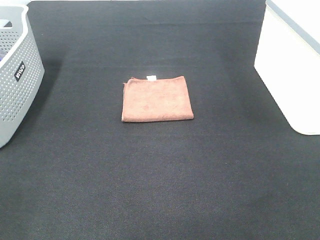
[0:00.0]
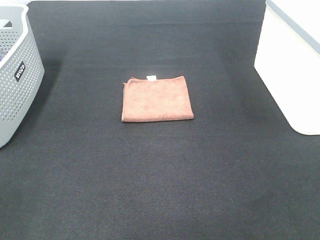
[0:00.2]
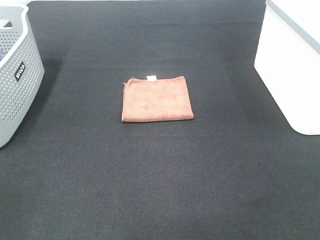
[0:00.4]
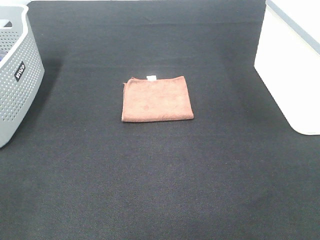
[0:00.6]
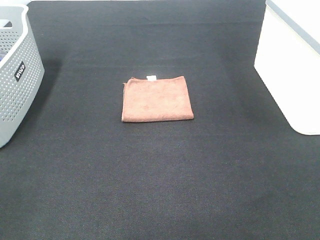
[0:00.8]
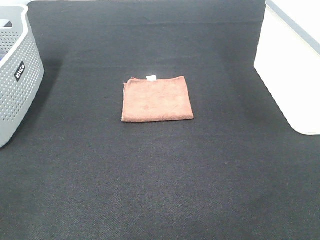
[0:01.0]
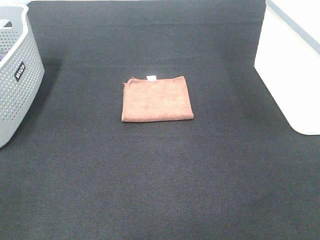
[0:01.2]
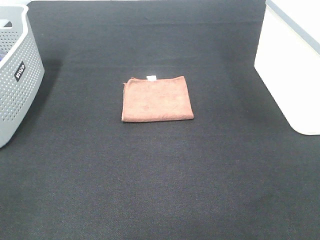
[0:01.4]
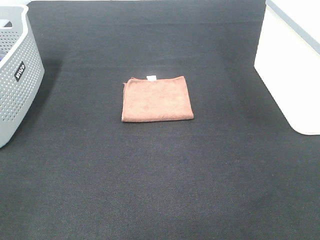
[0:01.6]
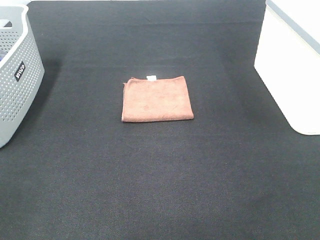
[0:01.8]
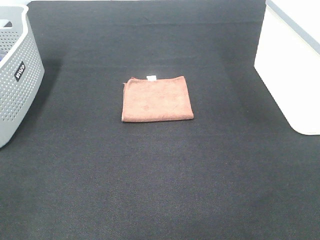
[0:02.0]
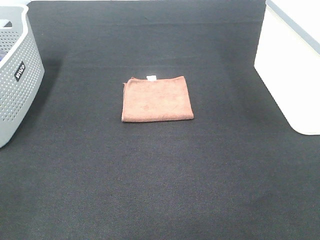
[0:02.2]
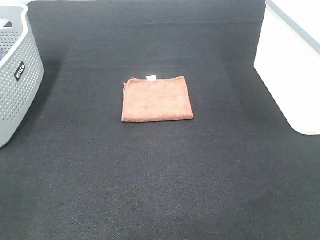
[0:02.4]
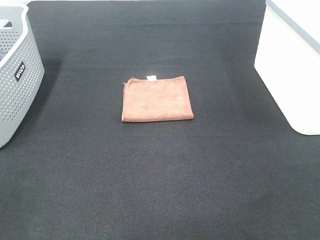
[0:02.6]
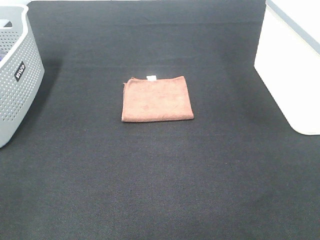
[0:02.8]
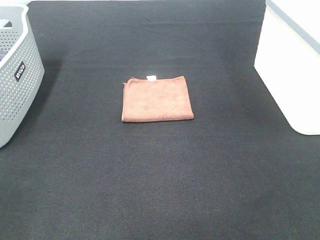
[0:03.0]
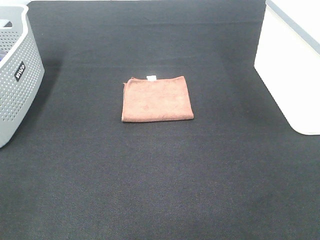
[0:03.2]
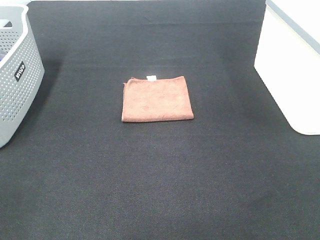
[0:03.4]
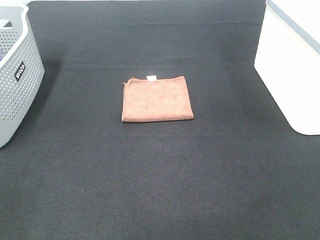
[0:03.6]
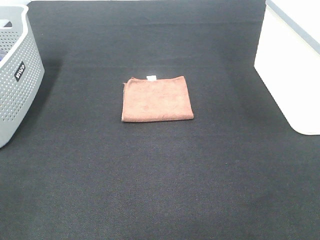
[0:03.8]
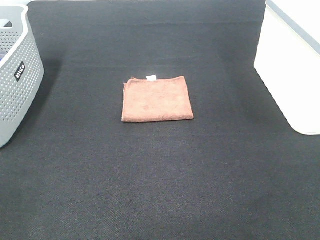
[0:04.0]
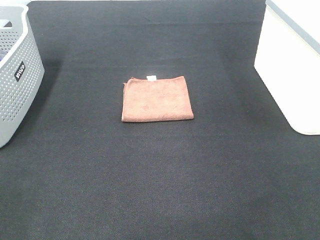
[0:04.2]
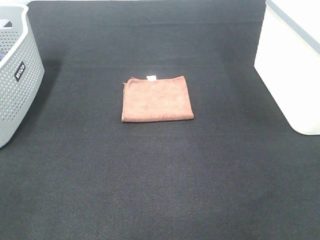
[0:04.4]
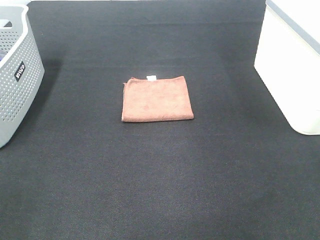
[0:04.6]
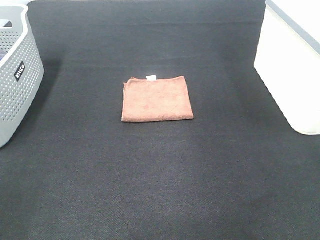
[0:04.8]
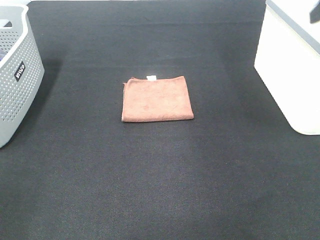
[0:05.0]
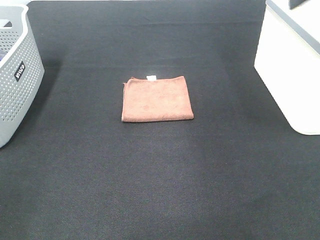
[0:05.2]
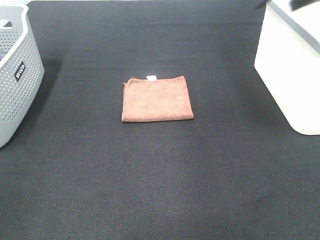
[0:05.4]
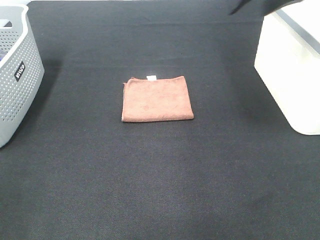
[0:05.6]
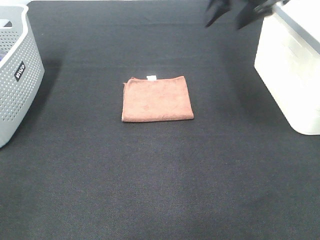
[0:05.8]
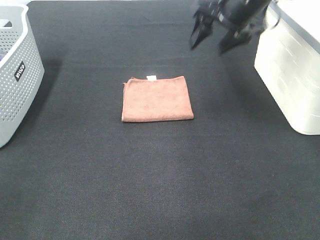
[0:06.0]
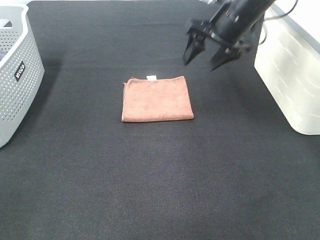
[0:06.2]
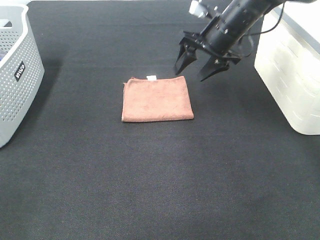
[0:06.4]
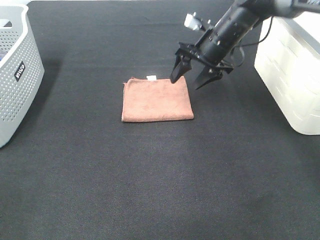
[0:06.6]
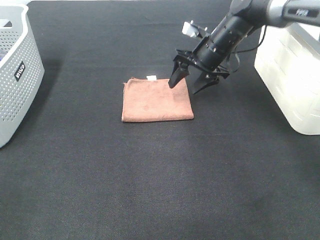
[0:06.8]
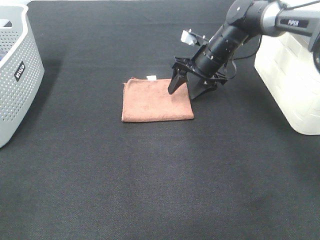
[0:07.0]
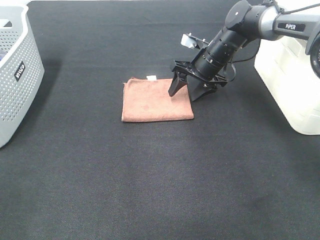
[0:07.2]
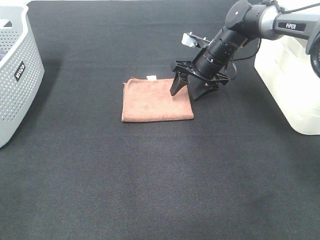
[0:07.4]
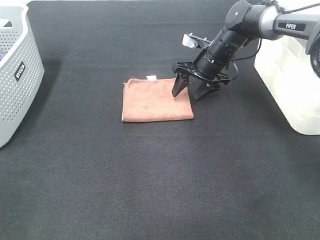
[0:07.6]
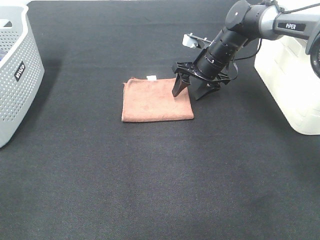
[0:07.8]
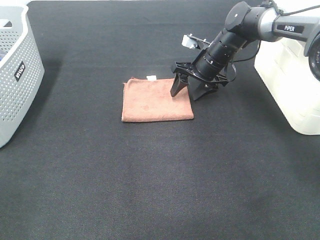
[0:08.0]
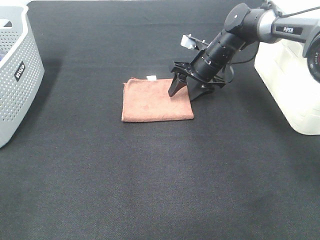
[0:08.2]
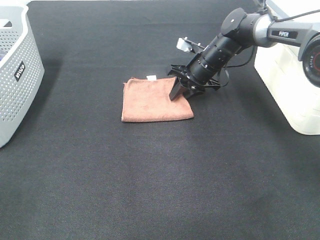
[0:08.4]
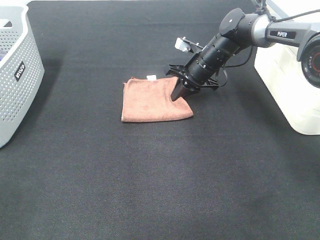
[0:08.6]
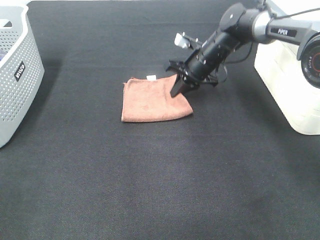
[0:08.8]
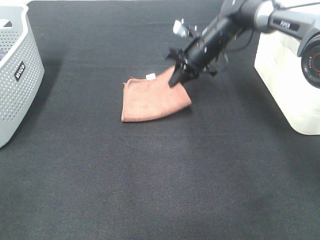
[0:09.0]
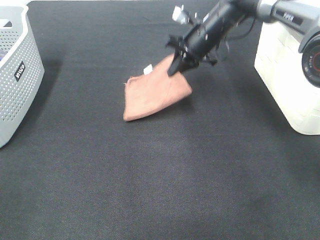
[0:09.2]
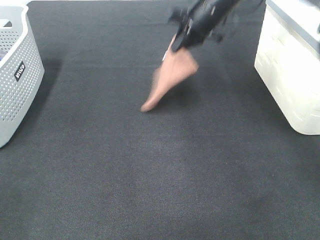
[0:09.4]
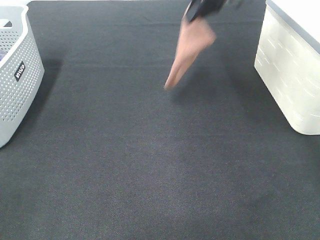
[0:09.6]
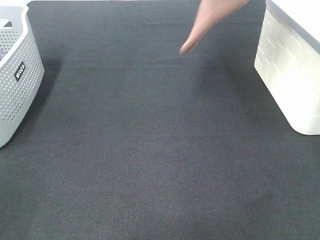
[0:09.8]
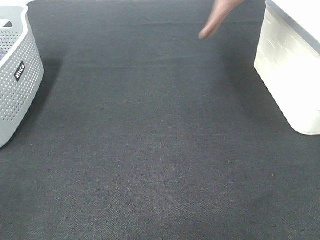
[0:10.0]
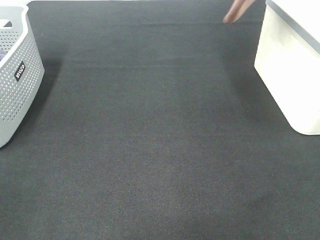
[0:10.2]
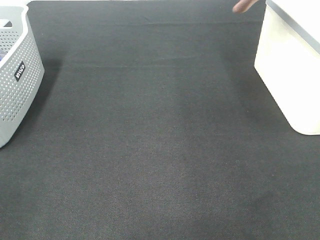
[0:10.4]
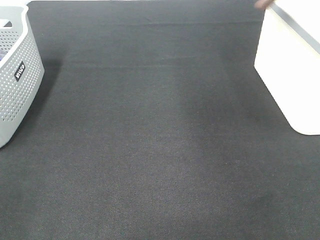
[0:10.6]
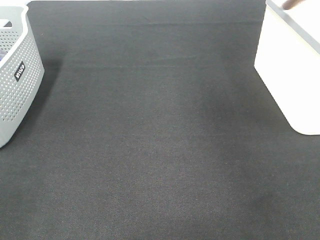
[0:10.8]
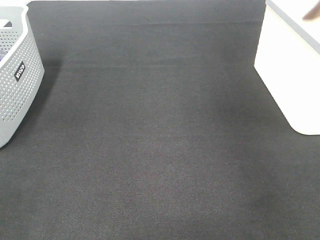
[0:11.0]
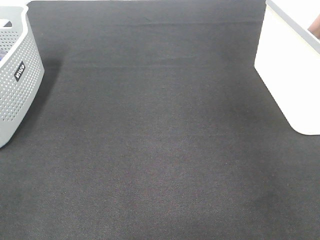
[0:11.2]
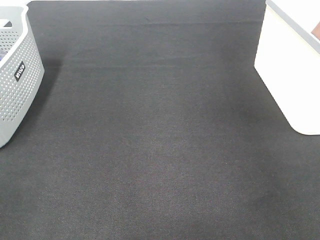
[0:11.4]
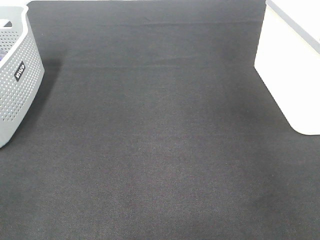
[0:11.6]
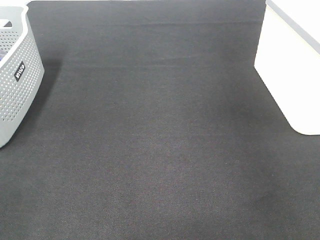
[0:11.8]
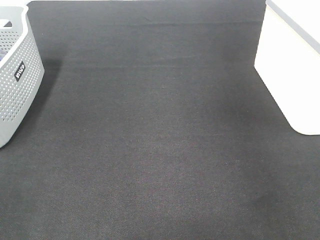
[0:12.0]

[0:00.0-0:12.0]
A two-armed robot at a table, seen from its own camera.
Step, 0:00.0 to 0:08.8: Right hand: grab the folded brown towel.
Step, 0:09.0 to 0:11.8: Right hand: place the brown towel in right basket.
0:00.0 to 0:03.0: Both grippers stay about where they are.
0:04.4 to 0:06.0: The right gripper heads forward and to the left, covering approximately 35 cm.
0:06.0 to 0:07.6: The right gripper travels downward and forward by approximately 15 cm.
0:07.6 to 0:09.0: The right gripper closes up.
0:09.0 to 0:10.4: The right gripper travels upward and to the right by approximately 35 cm.
0:10.4 to 0:12.0: The right gripper moves to the right and downward, roughly 10 cm, and opens.

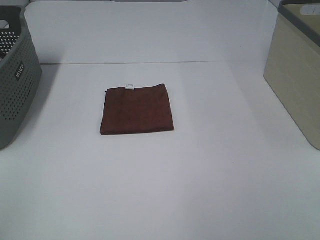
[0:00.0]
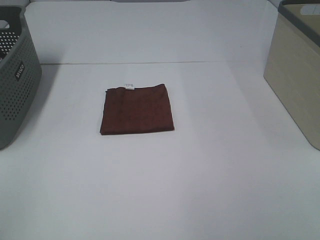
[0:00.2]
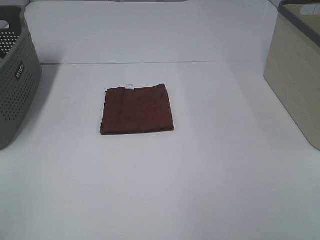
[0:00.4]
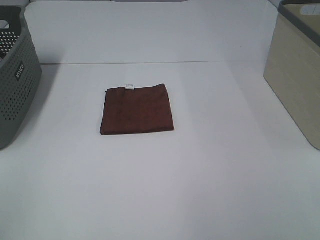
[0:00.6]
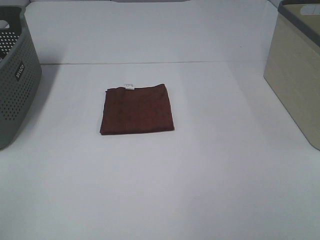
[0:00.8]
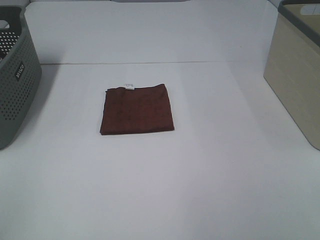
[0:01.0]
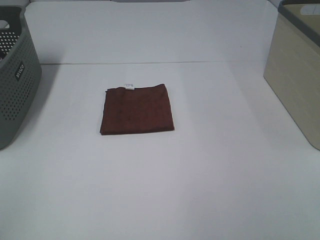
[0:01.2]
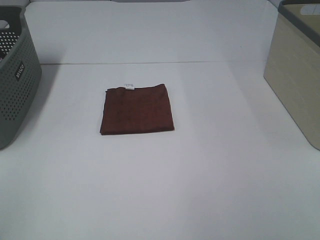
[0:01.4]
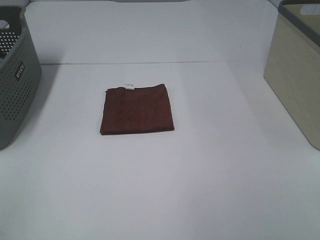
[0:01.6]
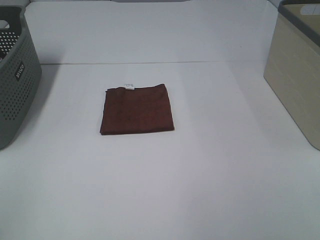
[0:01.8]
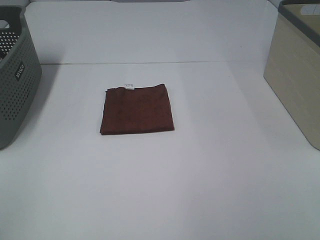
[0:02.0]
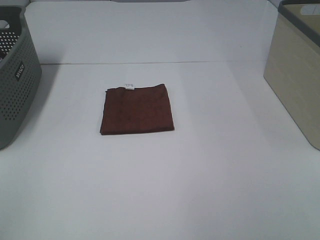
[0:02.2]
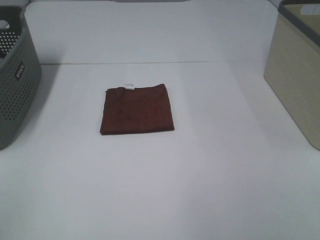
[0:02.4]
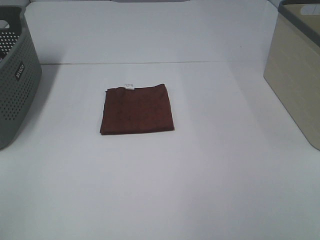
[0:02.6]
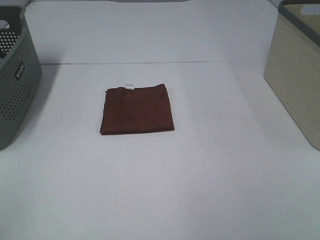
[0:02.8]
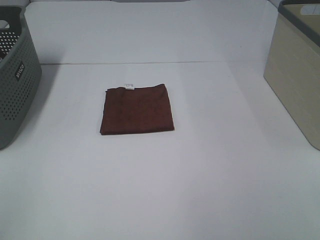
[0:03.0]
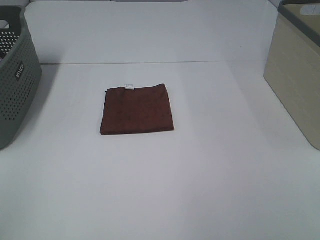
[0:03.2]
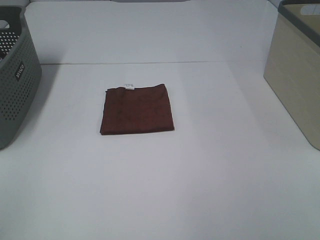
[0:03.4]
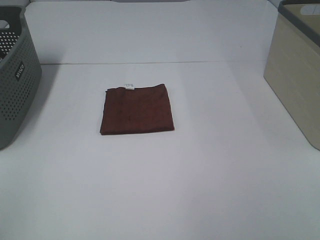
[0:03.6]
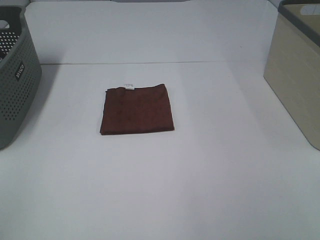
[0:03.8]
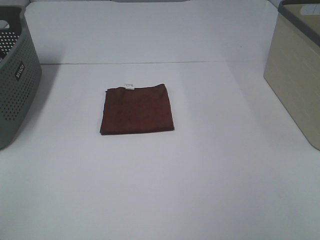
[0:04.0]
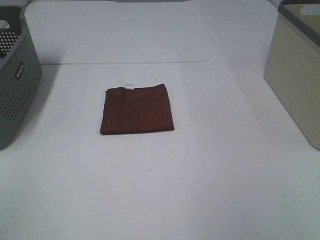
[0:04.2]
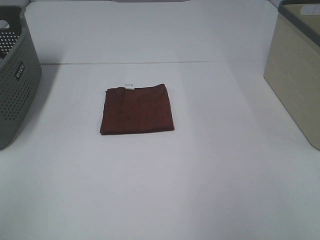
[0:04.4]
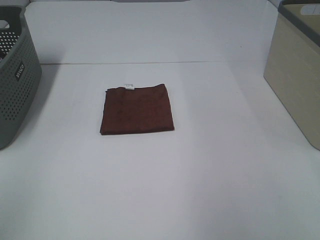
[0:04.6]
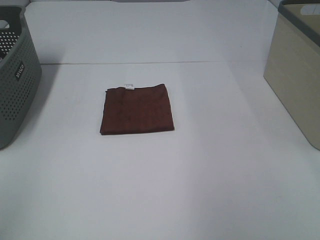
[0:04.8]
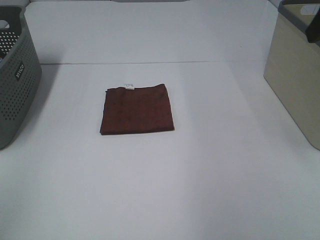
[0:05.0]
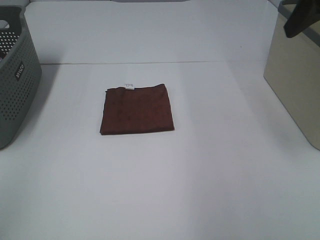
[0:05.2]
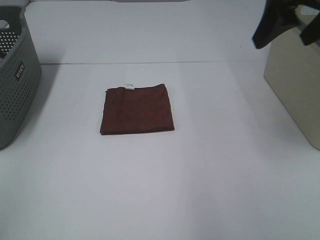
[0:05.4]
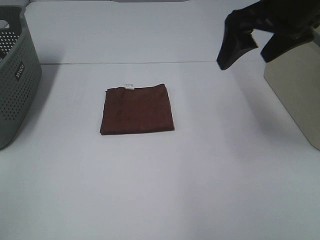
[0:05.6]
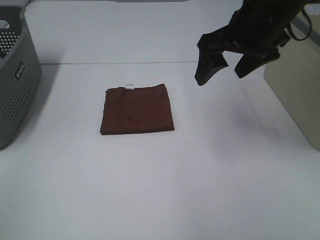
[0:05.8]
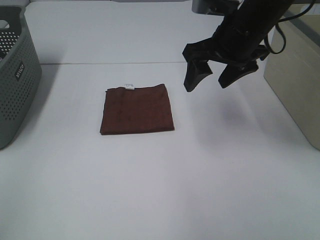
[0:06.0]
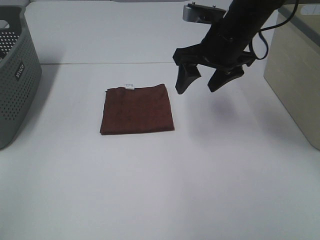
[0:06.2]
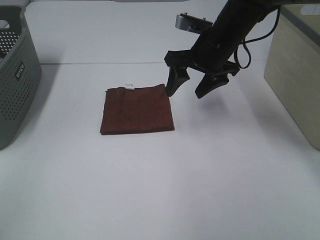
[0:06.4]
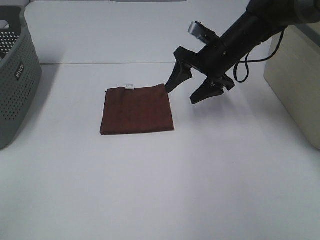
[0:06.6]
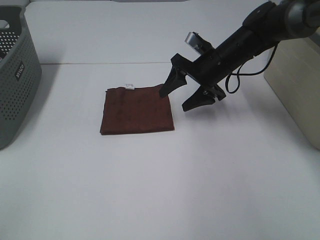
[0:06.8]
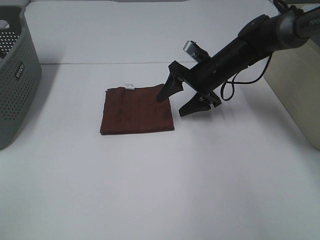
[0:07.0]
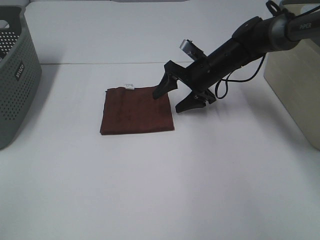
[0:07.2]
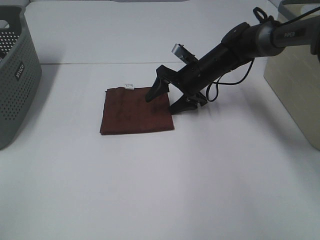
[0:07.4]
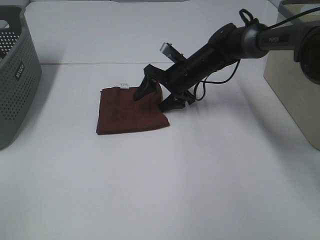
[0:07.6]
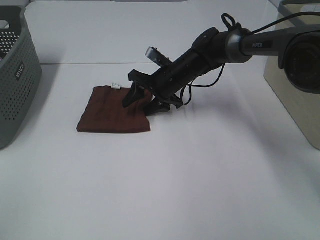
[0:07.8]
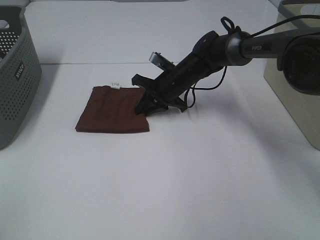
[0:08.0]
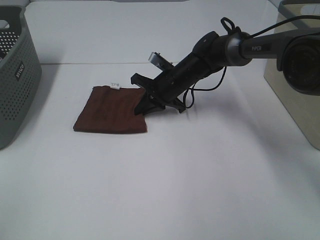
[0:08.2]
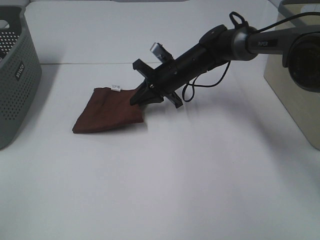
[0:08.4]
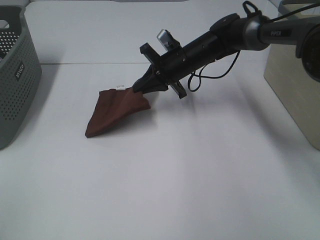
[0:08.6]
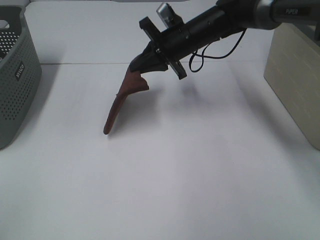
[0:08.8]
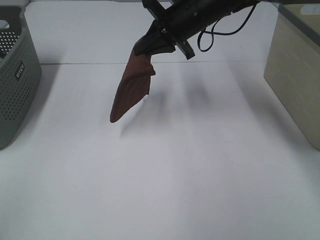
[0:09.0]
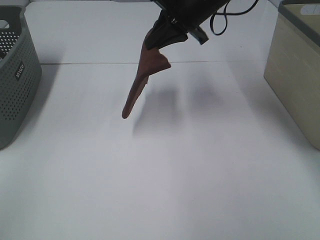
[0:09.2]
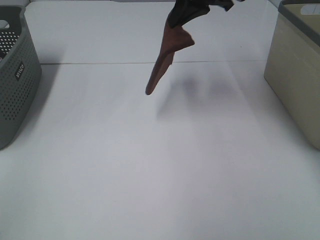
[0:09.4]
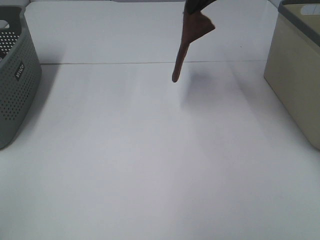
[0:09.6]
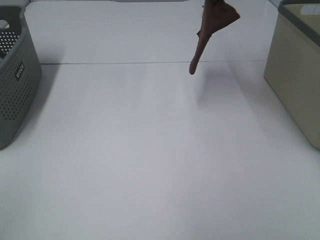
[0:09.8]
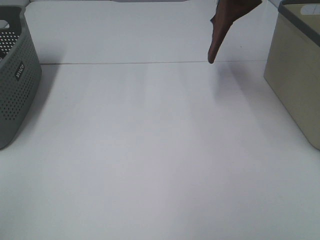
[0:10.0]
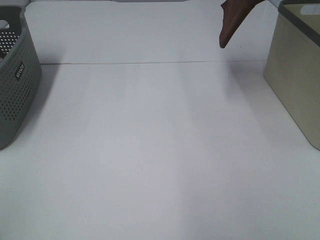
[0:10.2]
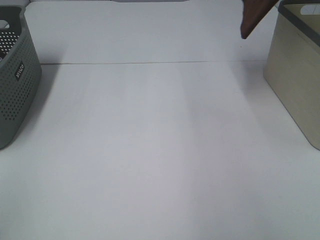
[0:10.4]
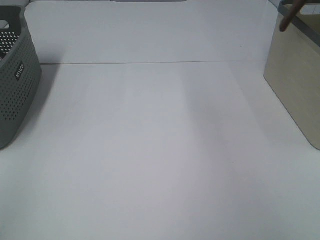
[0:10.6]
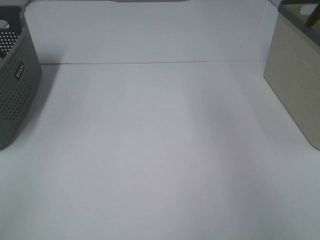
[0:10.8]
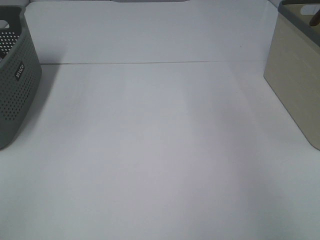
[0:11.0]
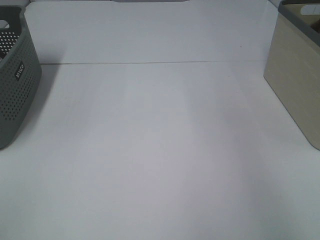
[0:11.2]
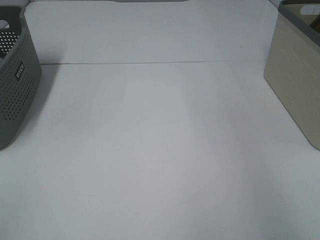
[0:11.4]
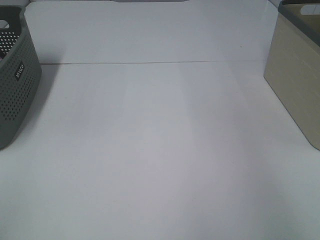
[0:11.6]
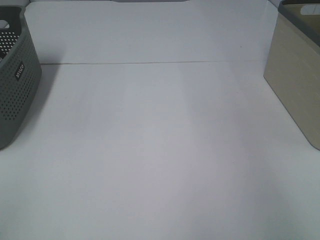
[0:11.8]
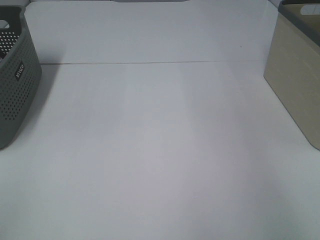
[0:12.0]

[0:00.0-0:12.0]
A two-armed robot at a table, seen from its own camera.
Step, 0:00.0 to 0:08.0: Right hand: grab the folded brown towel.
0:00.0 to 0:03.0: The two grippers keep their place.
0:04.4 to 0:06.0: The right gripper travels forward, to the left and downward by roughly 30 cm.
0:06.0 to 0:07.6: The right gripper moves downward and forward, approximately 20 cm.
0:07.6 to 0:09.0: The right gripper goes some 15 cm upward, and closes.
0:09.0 to 0:10.4: The right gripper moves upward and to the right, approximately 25 cm.
0:10.4 to 0:12.0: The right gripper goes some 15 cm to the right and downward.
